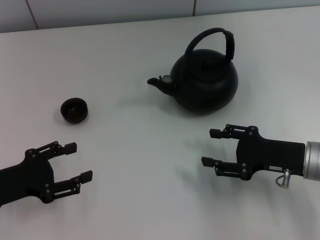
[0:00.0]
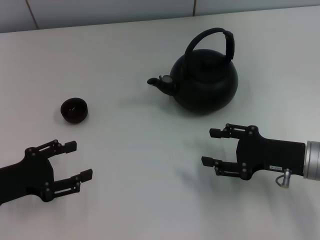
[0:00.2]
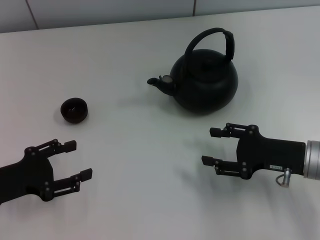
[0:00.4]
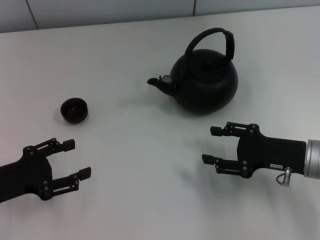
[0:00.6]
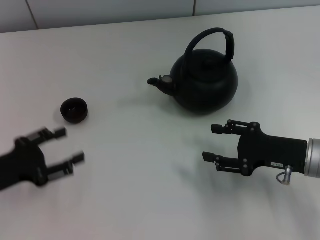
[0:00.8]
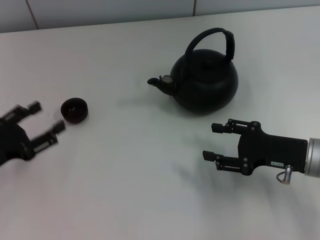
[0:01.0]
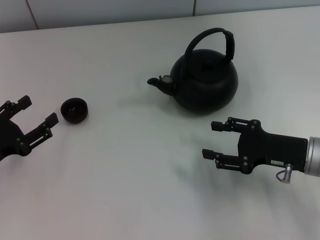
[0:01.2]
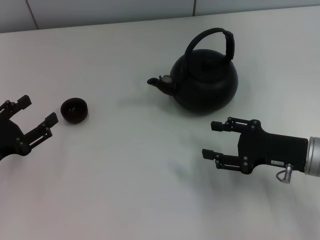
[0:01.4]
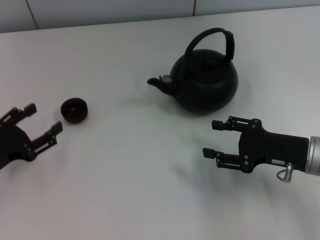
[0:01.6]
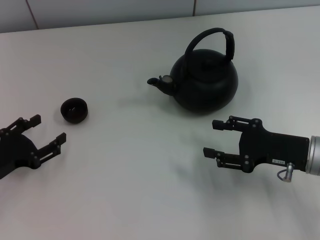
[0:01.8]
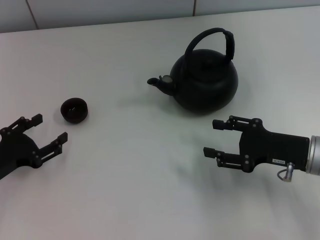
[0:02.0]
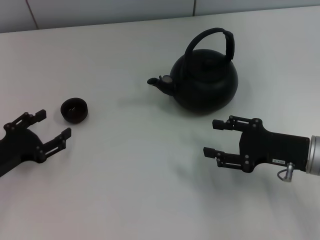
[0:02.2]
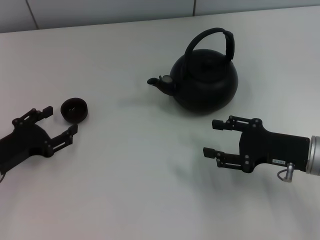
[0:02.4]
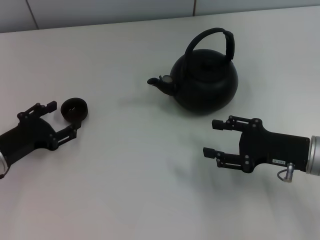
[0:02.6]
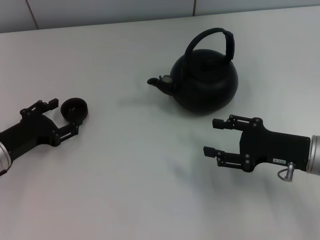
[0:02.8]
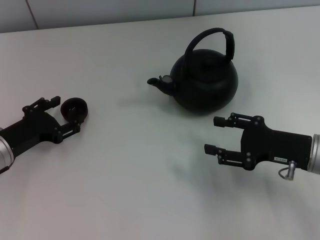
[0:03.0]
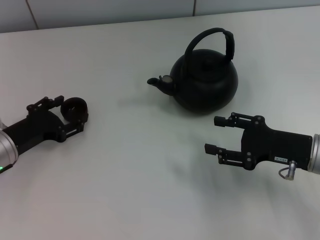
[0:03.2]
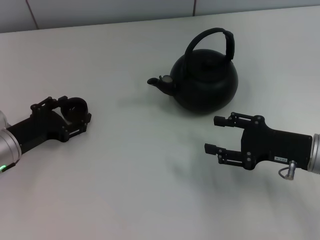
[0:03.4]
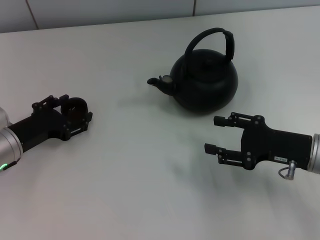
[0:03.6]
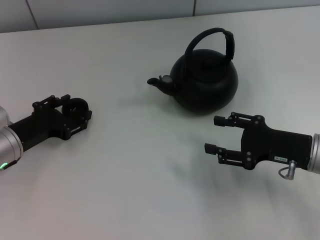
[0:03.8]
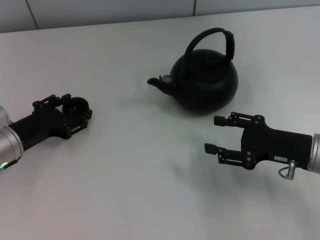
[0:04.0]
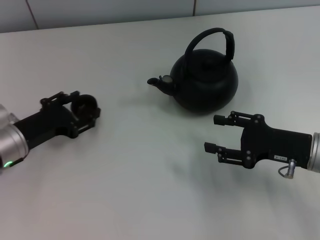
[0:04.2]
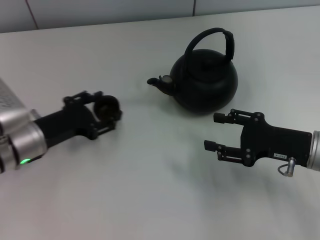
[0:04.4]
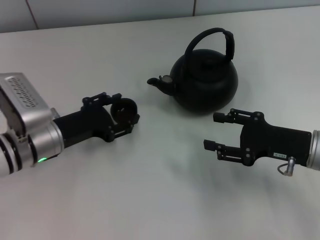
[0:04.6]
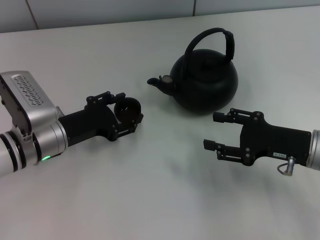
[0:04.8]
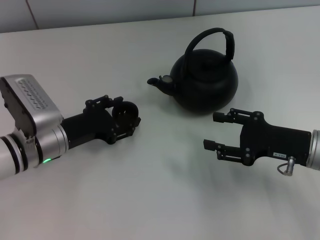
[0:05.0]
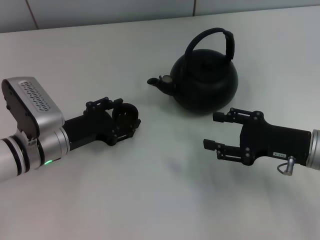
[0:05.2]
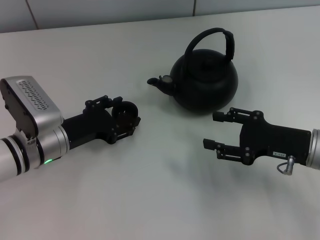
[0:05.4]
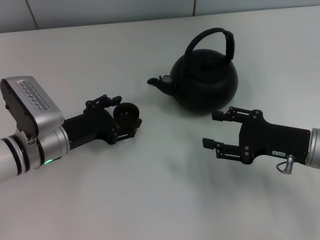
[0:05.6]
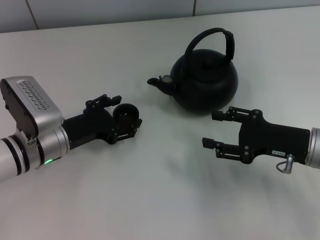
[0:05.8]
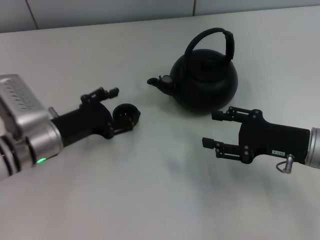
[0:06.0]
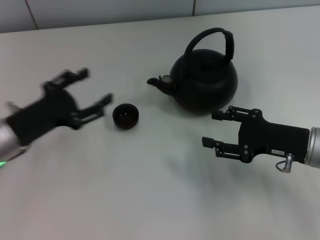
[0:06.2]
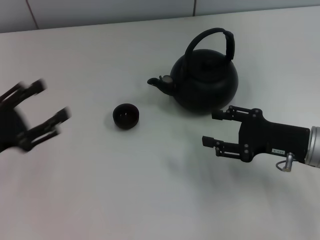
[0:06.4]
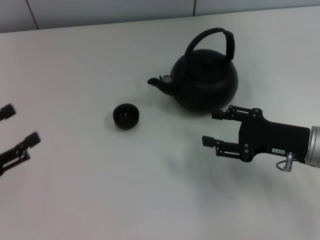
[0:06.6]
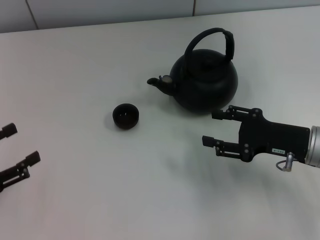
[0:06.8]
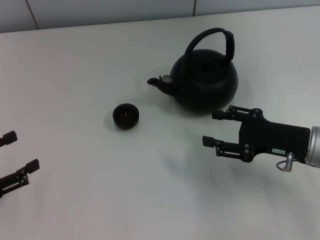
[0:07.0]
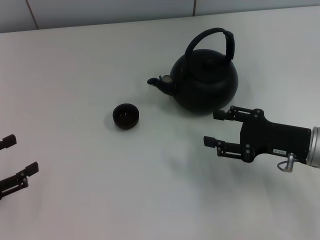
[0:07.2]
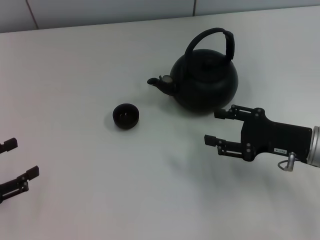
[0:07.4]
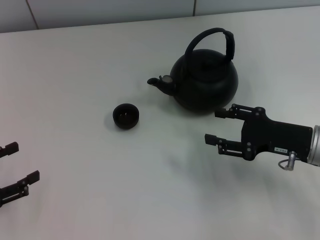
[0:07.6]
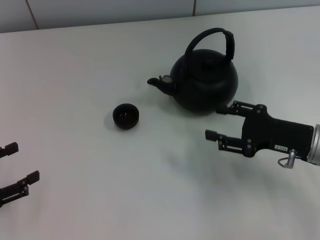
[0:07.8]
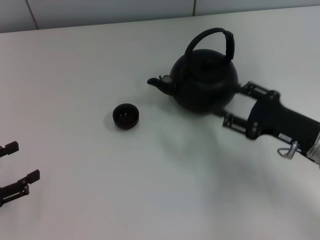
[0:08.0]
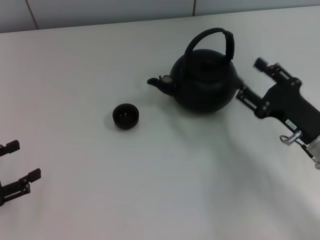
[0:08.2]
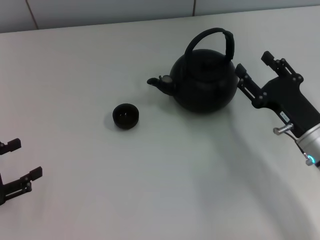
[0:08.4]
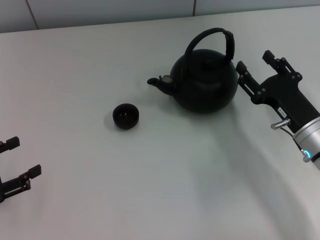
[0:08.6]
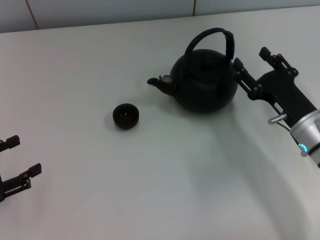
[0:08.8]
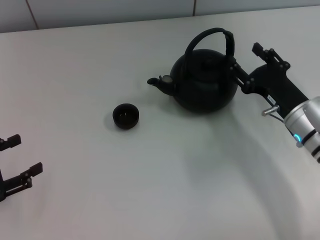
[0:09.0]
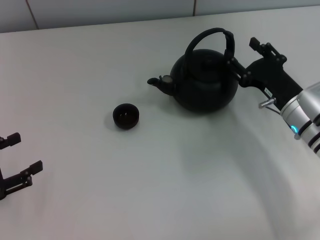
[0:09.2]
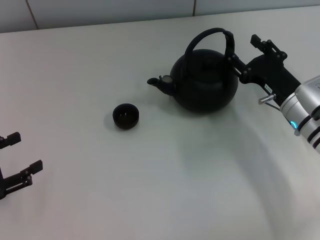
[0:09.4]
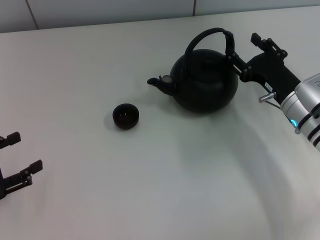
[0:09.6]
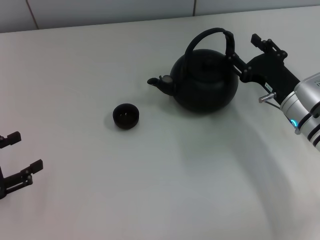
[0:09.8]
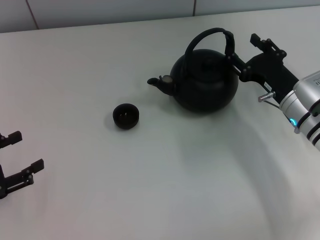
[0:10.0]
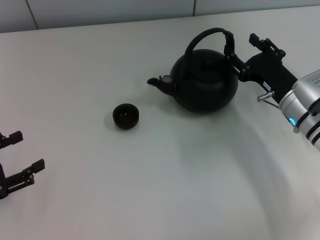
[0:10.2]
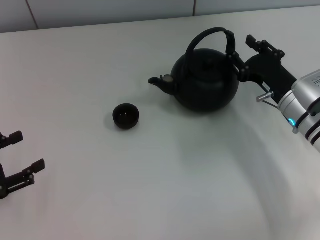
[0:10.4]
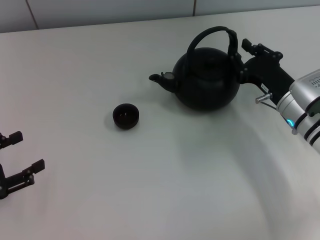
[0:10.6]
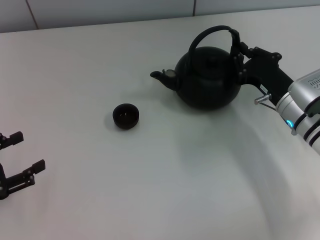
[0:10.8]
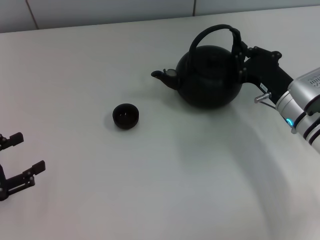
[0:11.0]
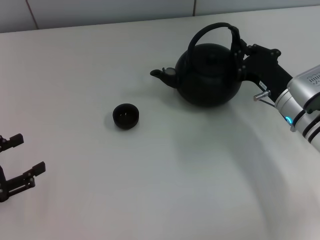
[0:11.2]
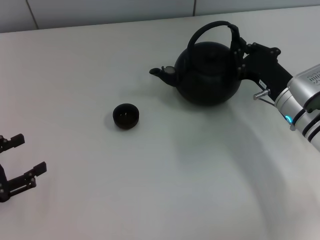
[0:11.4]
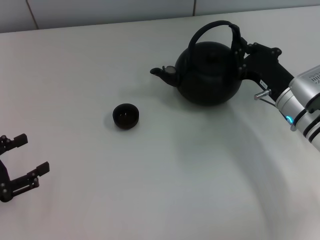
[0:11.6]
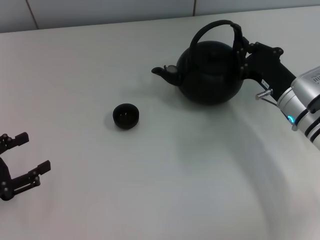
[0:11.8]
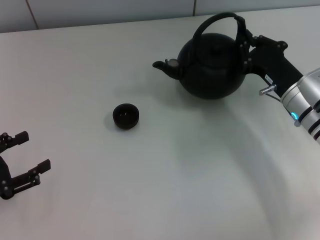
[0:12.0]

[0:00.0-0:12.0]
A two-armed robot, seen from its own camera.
Task of the whole recording: Grasp the handle of the teapot with one hand and pour tea into the teacup.
Step, 0:00.0 to 0:04.4: Pick up the teacup with the left gripper.
Step, 0:04.6 to 0:06.0: Place the teacup in the center of view with the left gripper.
0:01.6 to 0:03.0: The left gripper goes about 5 cm forward.
0:03.0 to 0:04.4: The left gripper moves about 5 cm.
0:04.4 to 0:06.0: There are only small adjustments of the grippers.
0:06.0 to 0:07.6: The left gripper travels to the left and backward by approximately 20 cm.
0:09.0 to 0:10.4: The grippers make only small movements.
0:10.4 to 0:12.0: The right gripper closes its fingers.

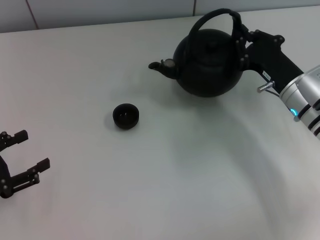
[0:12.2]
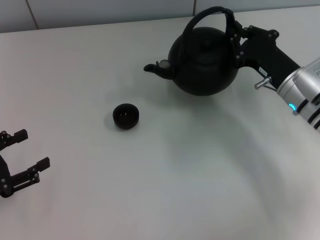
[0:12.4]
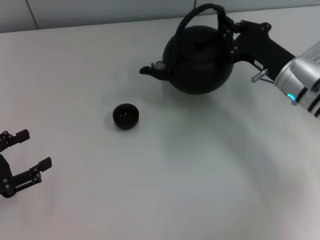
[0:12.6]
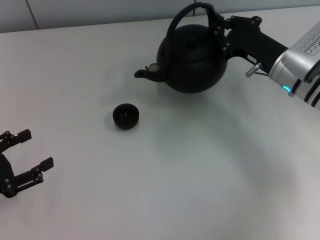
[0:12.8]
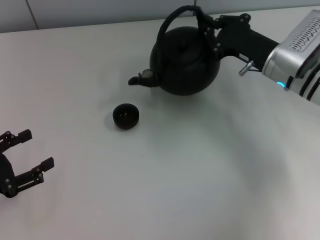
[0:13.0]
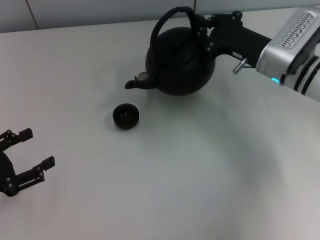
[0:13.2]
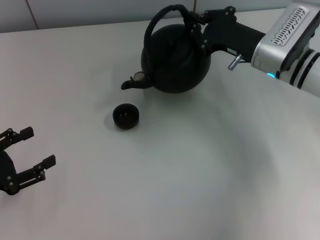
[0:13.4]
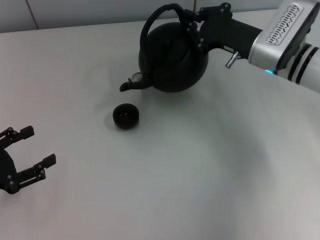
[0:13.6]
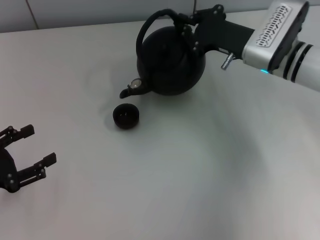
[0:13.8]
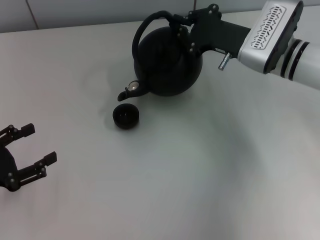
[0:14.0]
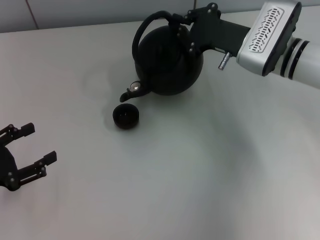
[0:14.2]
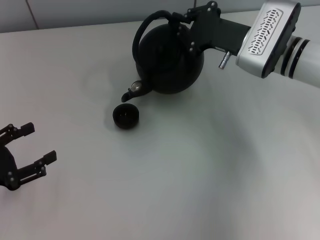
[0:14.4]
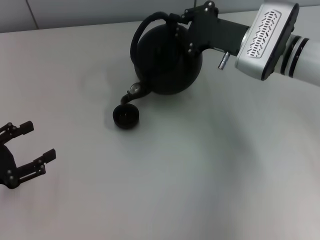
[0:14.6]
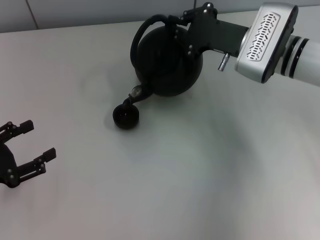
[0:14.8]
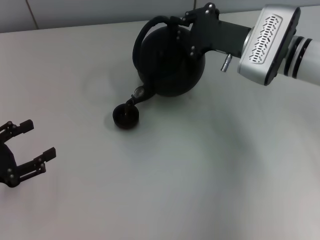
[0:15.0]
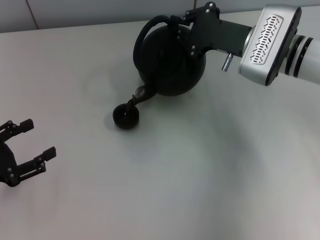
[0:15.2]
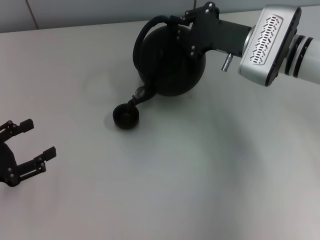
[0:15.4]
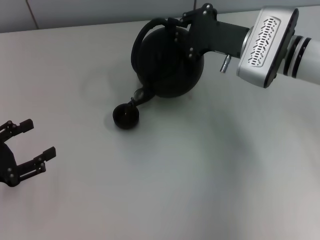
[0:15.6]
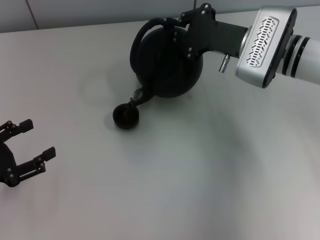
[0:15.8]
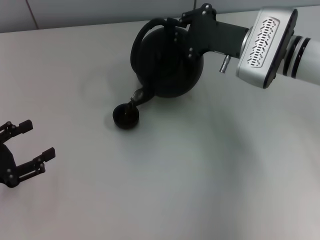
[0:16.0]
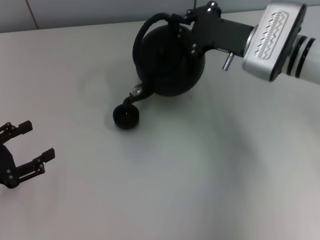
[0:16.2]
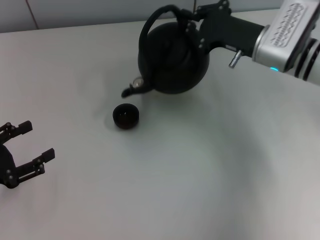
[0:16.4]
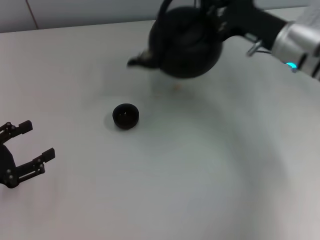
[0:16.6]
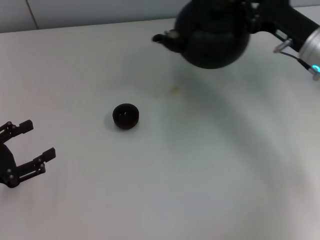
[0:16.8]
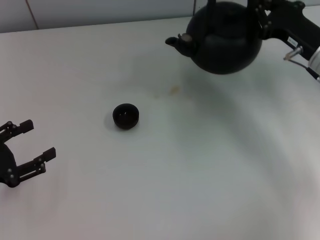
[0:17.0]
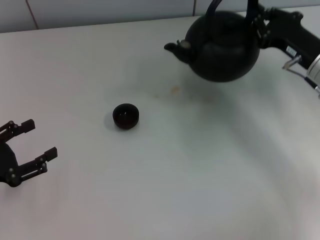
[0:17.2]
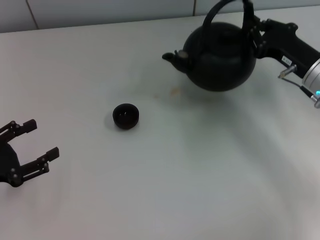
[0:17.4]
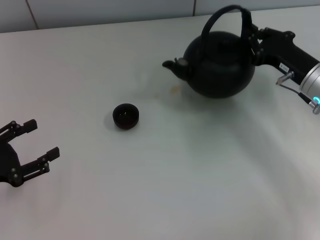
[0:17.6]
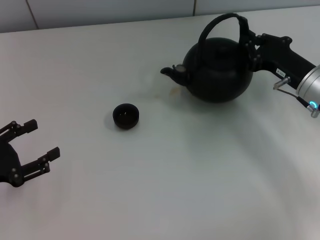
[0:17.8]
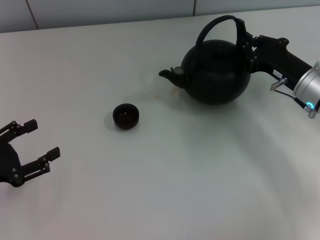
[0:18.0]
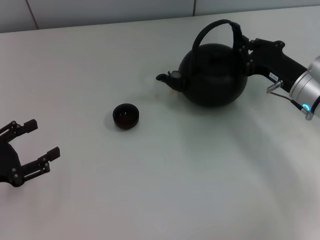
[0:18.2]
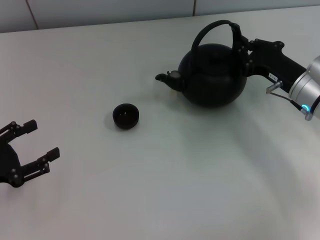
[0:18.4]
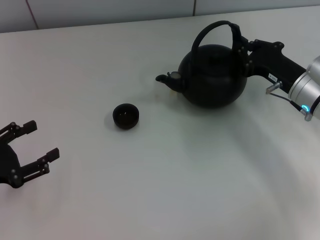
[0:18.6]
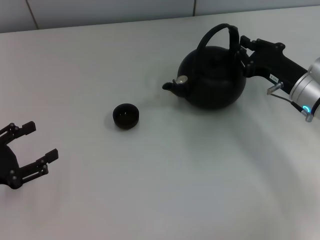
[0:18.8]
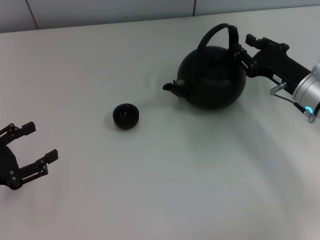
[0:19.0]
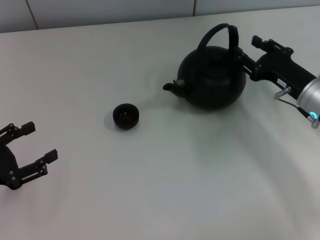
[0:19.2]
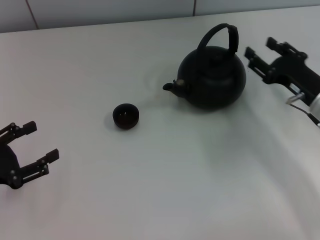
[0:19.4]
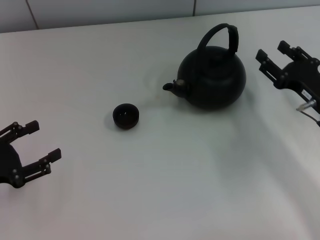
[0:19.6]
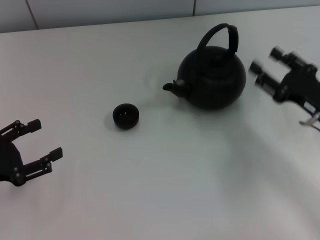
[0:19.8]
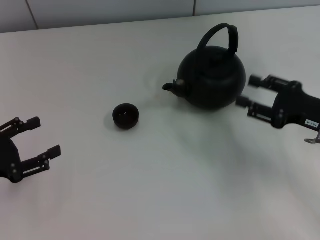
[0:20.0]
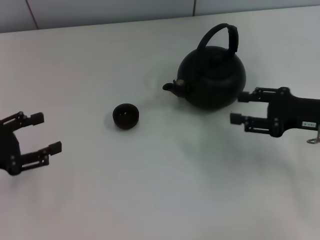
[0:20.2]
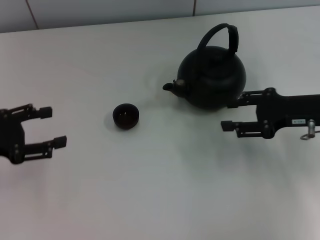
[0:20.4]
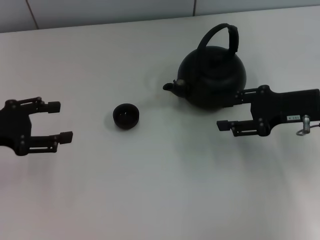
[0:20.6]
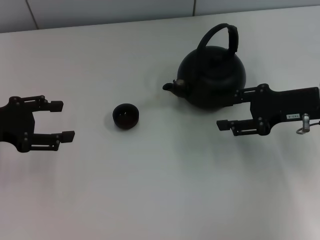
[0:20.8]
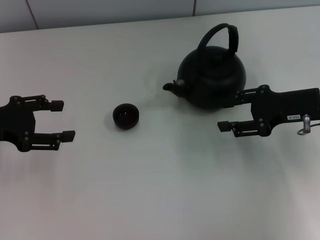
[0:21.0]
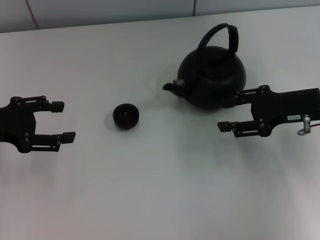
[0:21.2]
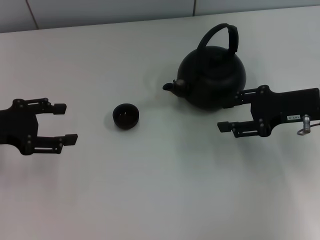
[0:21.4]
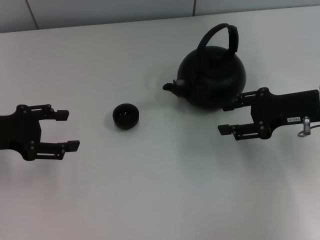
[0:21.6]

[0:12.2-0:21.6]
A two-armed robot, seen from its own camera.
Task of the whole recording: Grasp the handle of the teapot with one hand and pour tea into the teacup.
Step, 0:16.8 to 0:19.4: Put down the teapot with the right gripper.
0:12.2 to 0:13.8: The right gripper goes some 10 cm forward and upward.
0:13.8 to 0:15.4: The grippers stay close to where they were, moving slightly.
0:15.4 to 0:17.0: The right gripper moves to the right, about 10 cm.
0:17.0 to 0:18.4: The right gripper moves about 5 cm.
0:18.4 to 0:20.0: The right gripper travels backward by roughly 5 cm, and opens.
0:20.0 to 0:21.6: The two grippers go approximately 5 cm forward.
